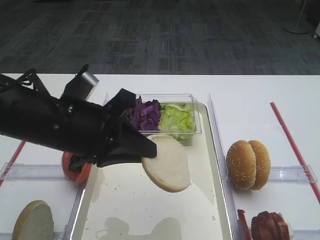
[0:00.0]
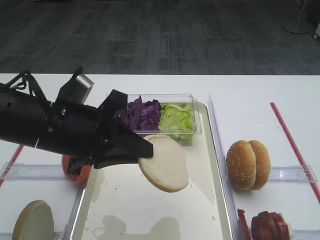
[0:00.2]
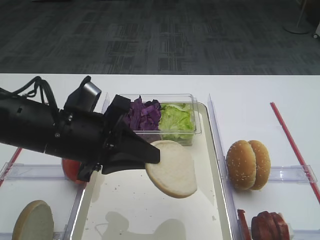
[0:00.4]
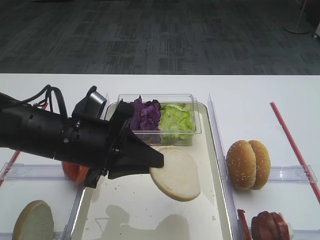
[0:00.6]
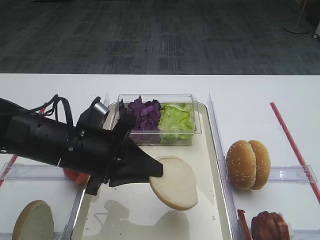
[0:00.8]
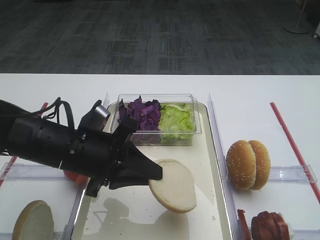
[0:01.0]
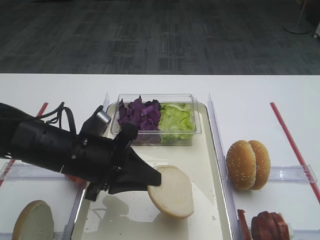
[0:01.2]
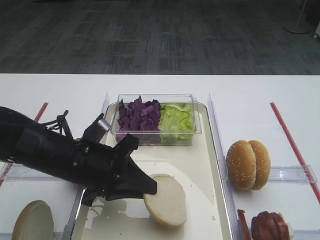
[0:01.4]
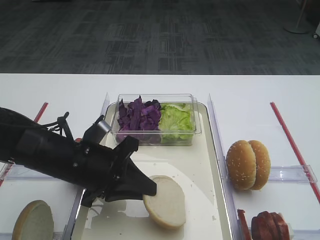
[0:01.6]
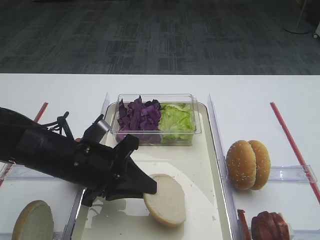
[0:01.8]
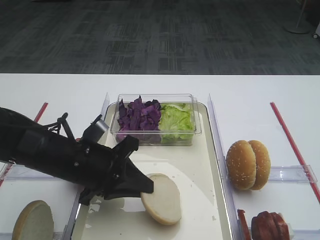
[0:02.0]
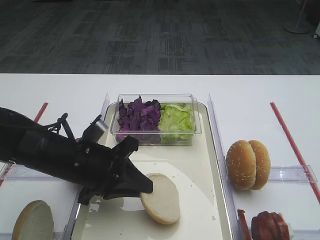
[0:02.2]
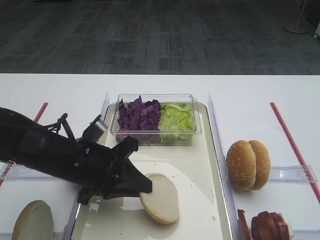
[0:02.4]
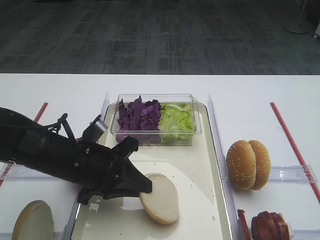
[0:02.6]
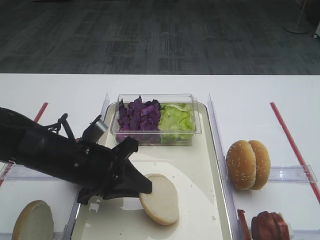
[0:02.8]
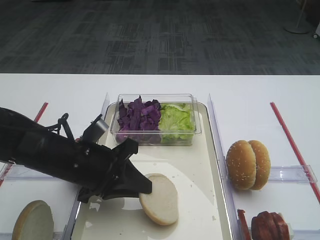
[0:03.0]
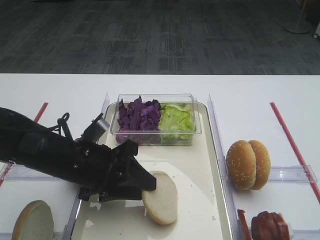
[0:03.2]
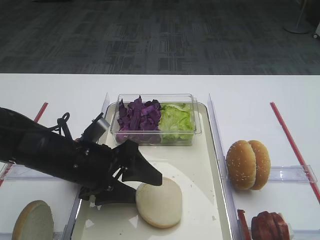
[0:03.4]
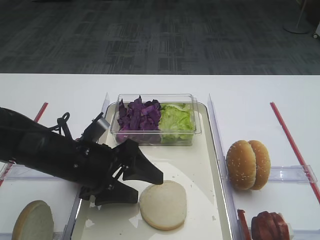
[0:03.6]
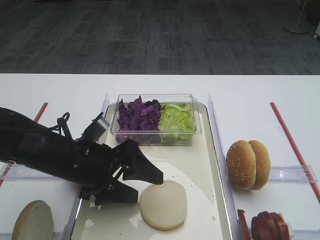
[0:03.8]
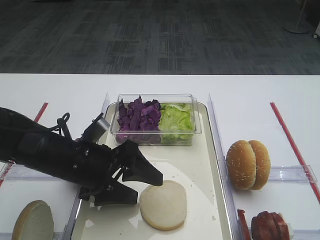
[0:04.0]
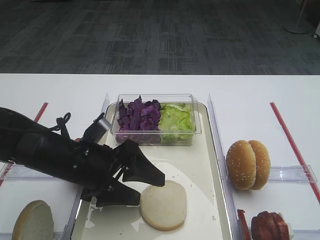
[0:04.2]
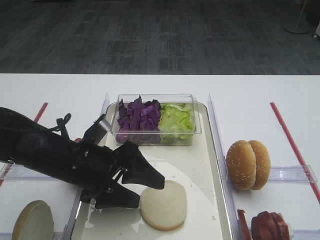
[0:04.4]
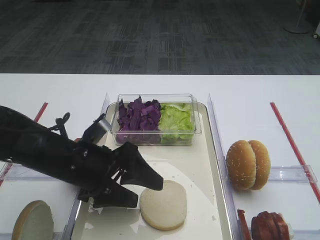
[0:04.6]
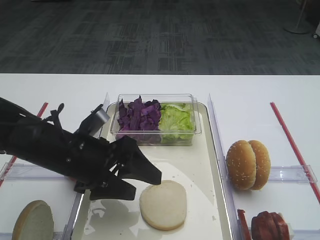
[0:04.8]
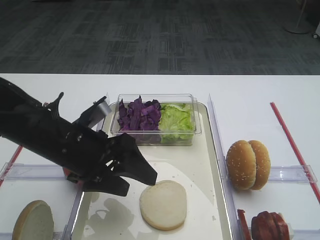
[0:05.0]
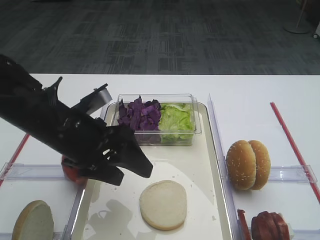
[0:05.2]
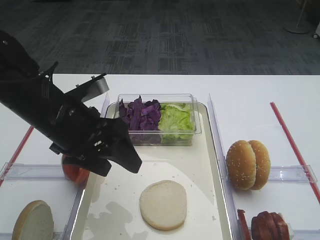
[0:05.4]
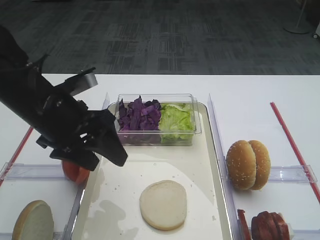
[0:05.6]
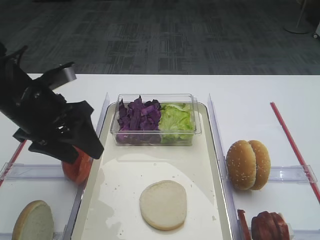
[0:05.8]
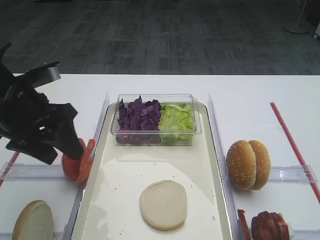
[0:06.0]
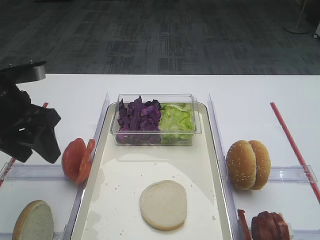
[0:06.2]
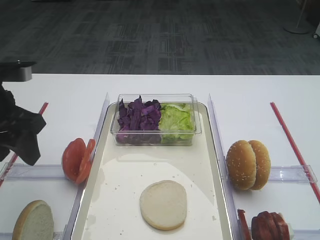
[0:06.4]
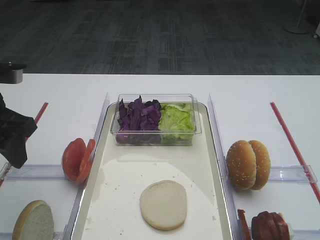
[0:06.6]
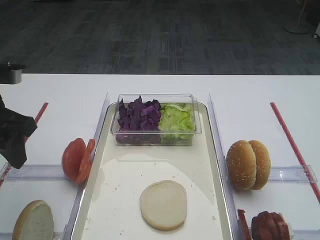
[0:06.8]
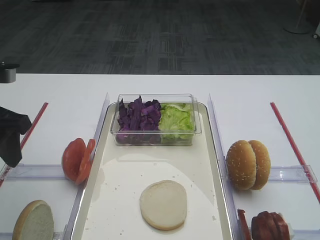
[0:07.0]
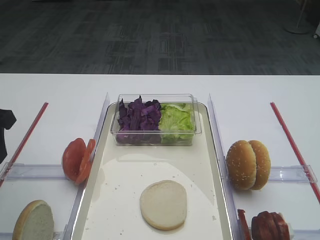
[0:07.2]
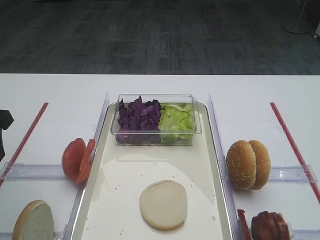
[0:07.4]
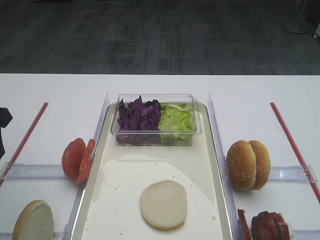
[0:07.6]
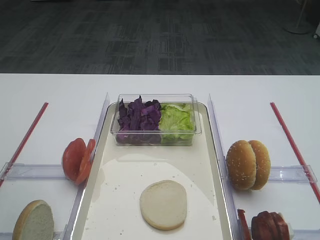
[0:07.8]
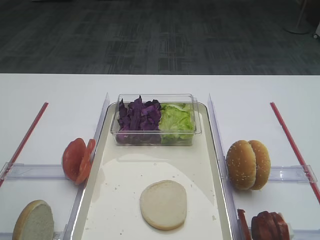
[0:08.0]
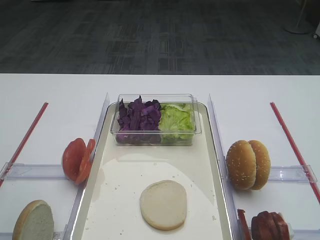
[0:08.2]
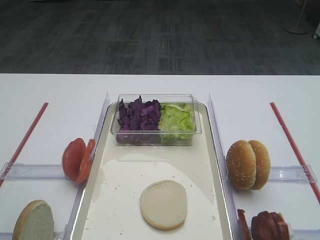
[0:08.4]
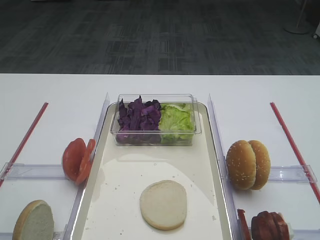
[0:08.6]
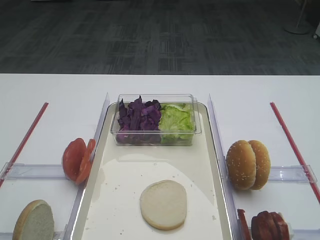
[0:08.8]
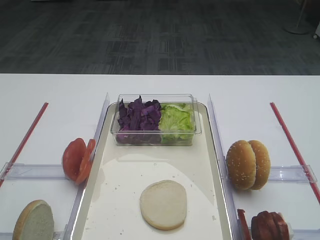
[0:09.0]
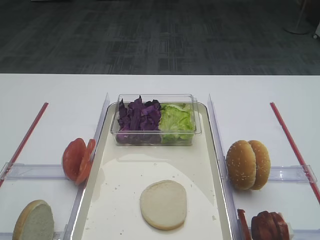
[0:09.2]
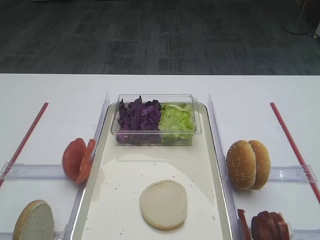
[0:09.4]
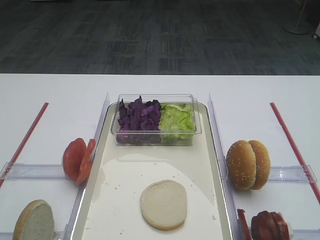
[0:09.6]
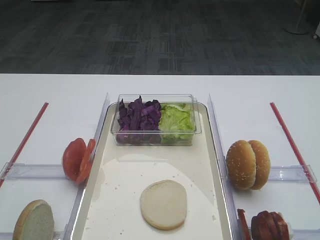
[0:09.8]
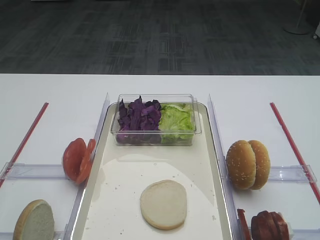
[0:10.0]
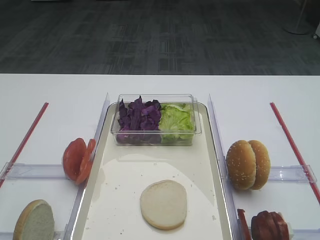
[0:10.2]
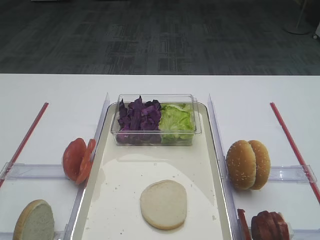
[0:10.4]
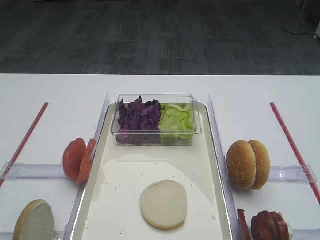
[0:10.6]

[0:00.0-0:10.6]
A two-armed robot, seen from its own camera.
Step, 0.0 to 5.0 s: Place the bread slice on the tray with the left gripper.
0.0 to 1.6 s: The left gripper shifts approximately 10 cm downward.
1.6 to 3.0 s: The two grippers keep their place.
3.0 to 4.6 s: The left gripper opens.
4.6 to 6.0 s: The left gripper travels upward and to the left by approximately 15 cm.
6.0 to 7.6 s: The left gripper goes some 5 cm to the left.
7.6 to 9.0 s: The left gripper heads backward, covering roughly 20 cm.

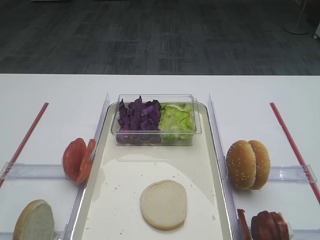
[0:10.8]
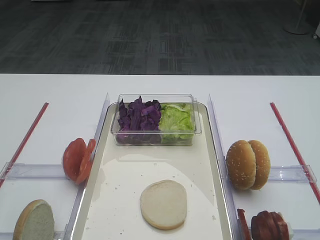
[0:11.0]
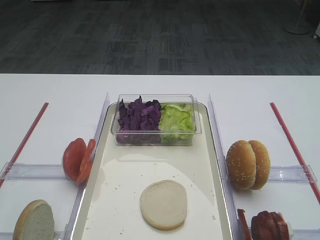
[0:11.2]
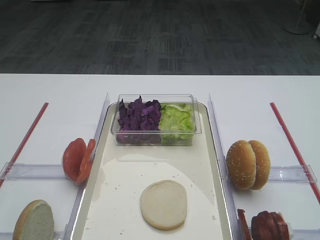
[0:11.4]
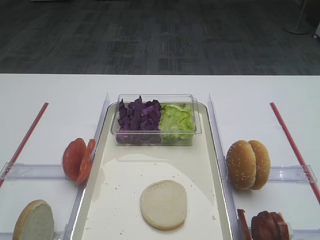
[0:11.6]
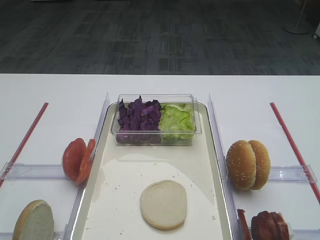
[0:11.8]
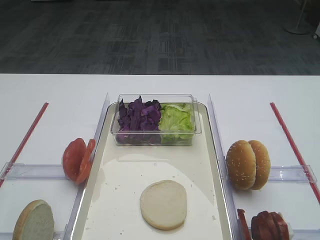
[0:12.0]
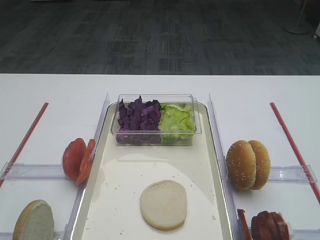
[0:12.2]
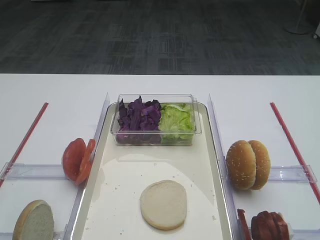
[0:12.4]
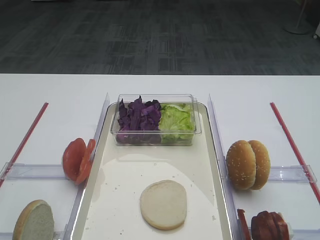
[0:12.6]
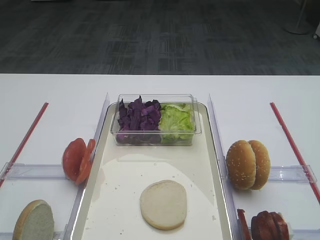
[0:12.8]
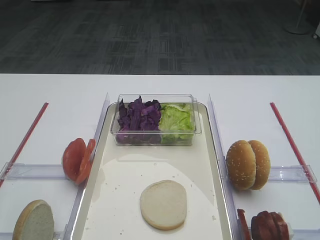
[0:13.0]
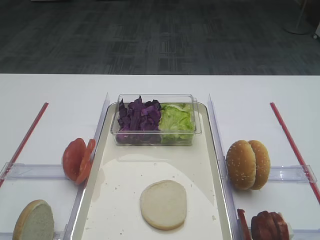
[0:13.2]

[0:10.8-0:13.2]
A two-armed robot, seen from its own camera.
12.0 to 13.2 s: Both grippers stay about where they are.

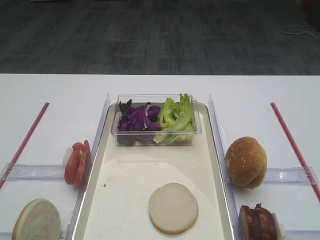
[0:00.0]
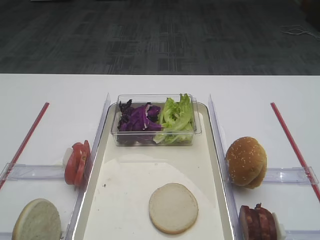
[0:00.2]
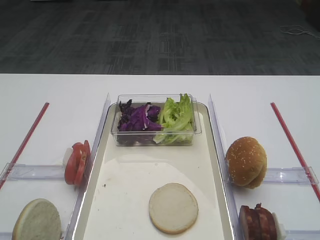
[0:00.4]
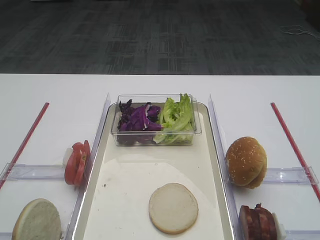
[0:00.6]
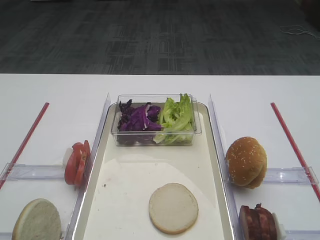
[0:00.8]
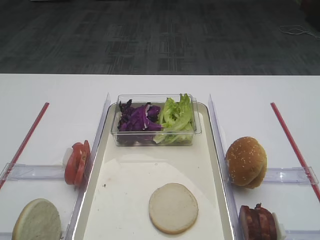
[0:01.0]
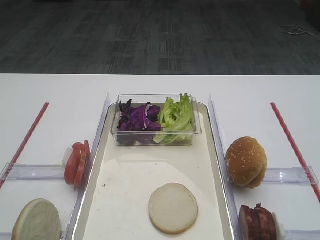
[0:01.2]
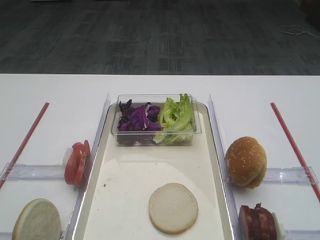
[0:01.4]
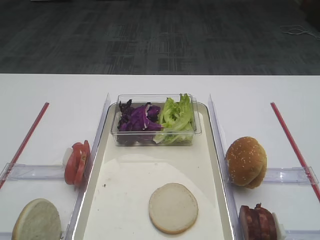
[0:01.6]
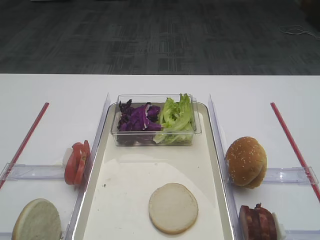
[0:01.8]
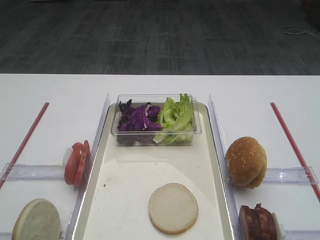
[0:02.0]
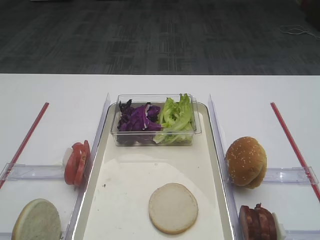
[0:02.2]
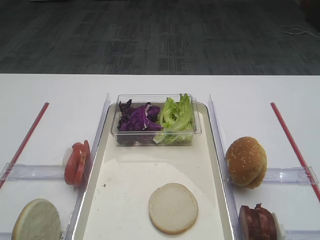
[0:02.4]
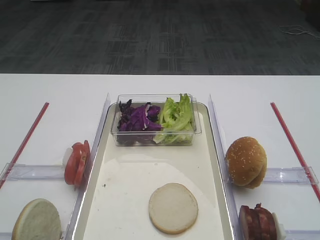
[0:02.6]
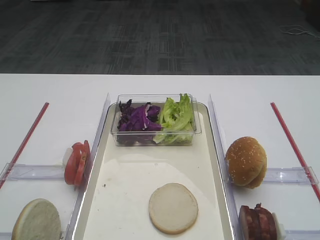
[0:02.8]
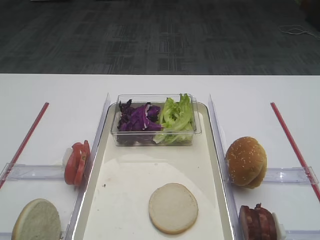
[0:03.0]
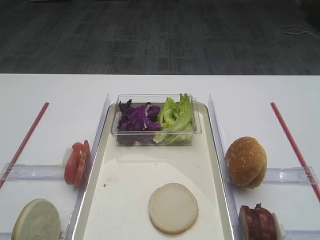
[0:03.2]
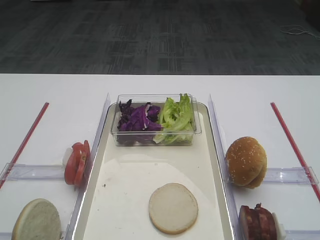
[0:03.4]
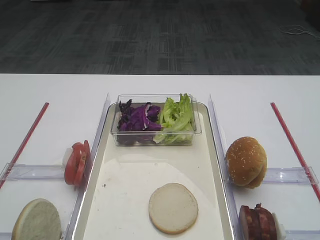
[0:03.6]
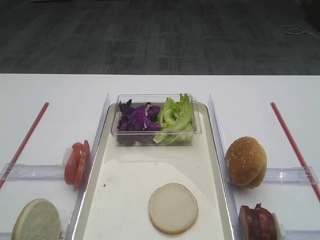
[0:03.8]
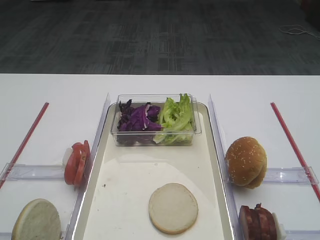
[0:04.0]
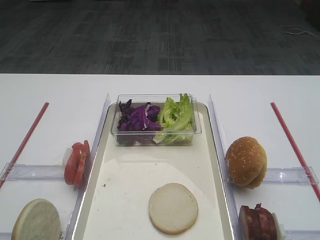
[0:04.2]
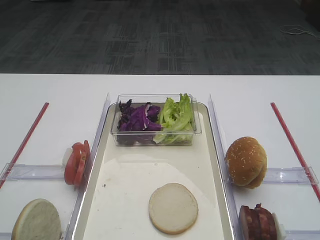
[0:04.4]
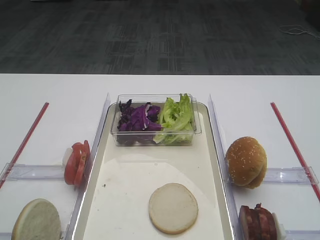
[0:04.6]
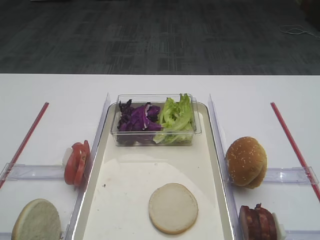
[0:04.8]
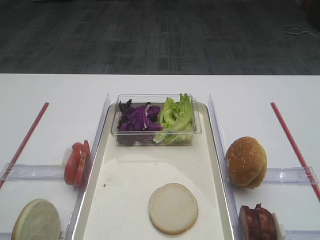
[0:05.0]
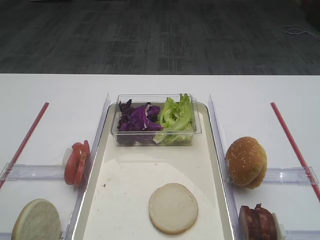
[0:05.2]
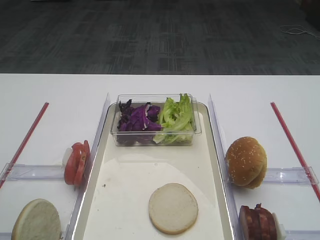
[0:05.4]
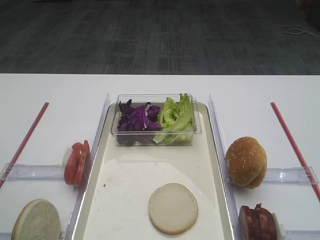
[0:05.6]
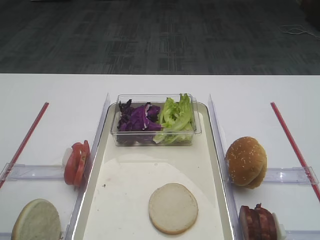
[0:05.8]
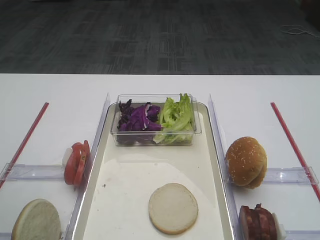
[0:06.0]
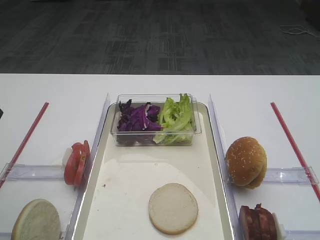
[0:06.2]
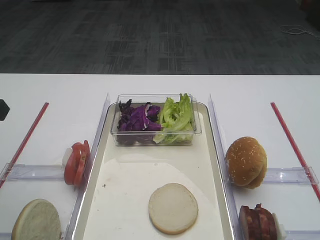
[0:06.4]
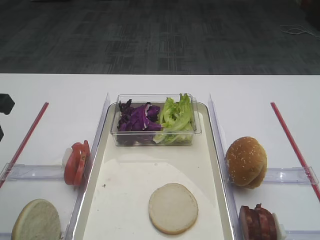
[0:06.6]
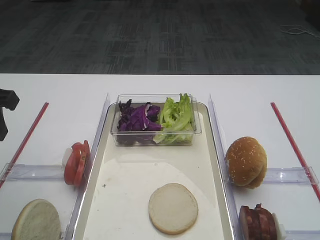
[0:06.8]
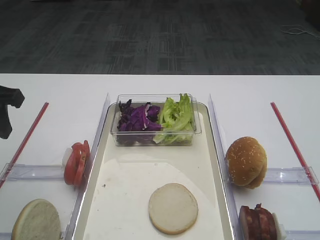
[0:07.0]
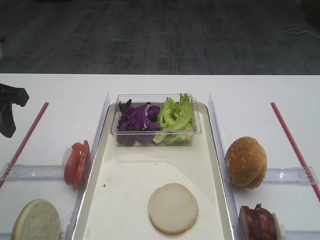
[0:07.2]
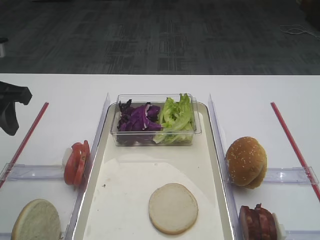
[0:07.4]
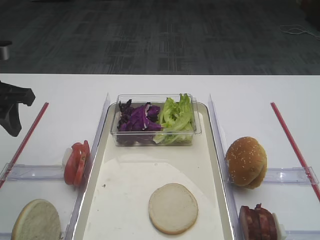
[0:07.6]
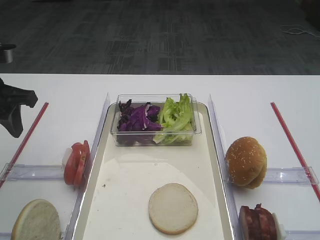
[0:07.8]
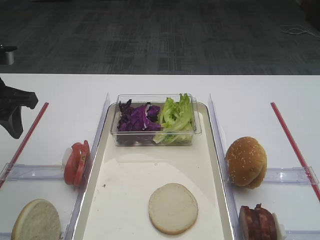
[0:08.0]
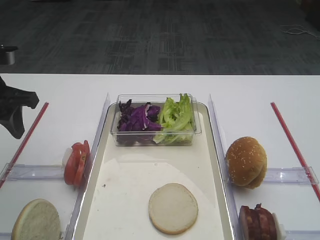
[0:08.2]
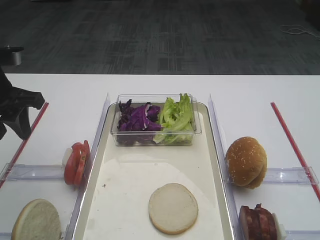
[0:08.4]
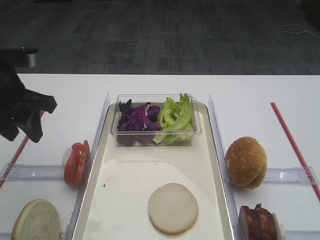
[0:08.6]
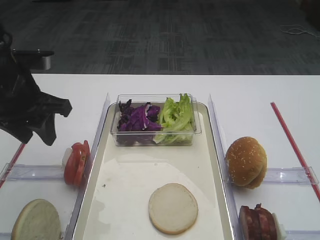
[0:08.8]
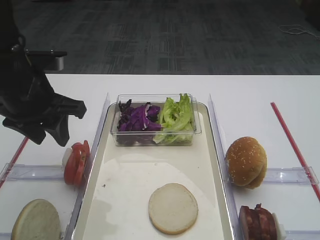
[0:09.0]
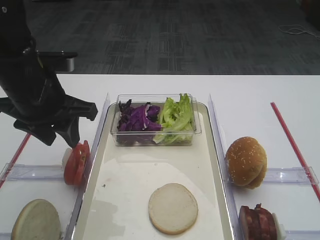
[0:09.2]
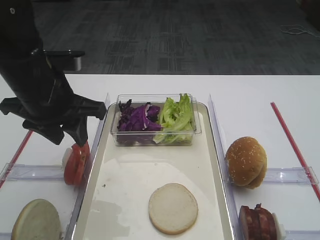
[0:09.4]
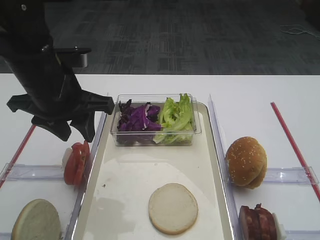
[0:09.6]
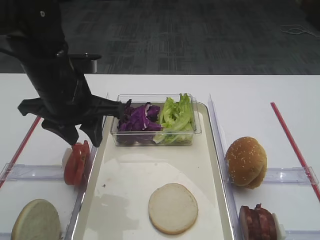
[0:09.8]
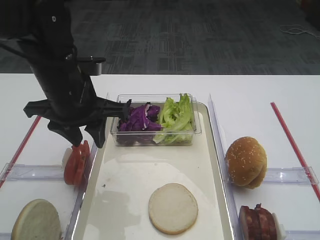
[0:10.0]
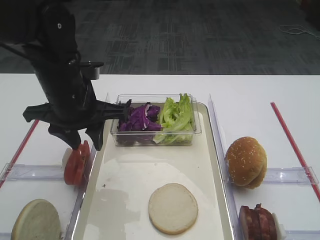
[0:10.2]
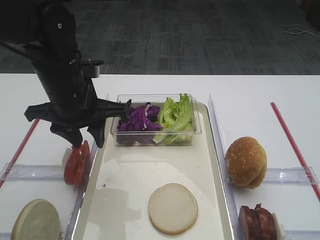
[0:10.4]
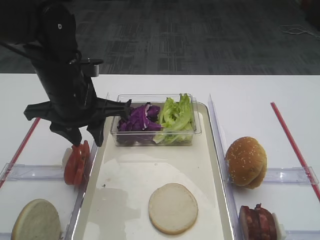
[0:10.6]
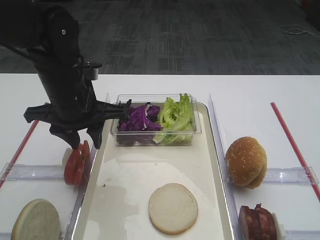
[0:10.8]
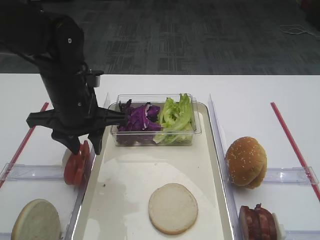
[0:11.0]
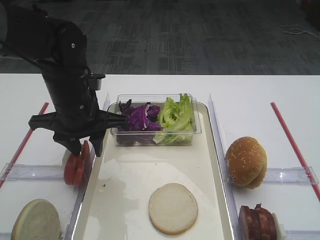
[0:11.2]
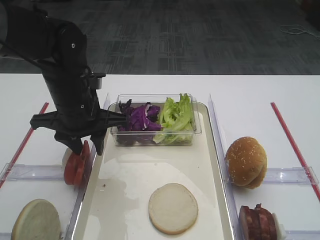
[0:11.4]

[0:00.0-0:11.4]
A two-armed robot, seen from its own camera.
1.4 to 2.8 s: Both grippers stay put.
5.6 to 7.2 s: The left gripper moves forward, approximately 10 cm.
7.2 to 8.6 s: There are only small adjustments of the grippers.
8.6 to 10.0 s: The left gripper shifts about 10 cm to the right.
10.0 to 11.4 s: There are only small adjustments of the grippers.
